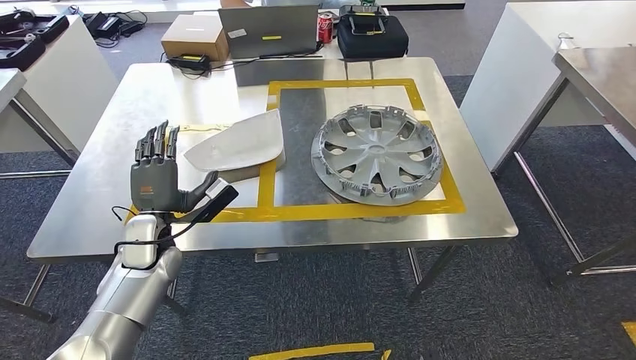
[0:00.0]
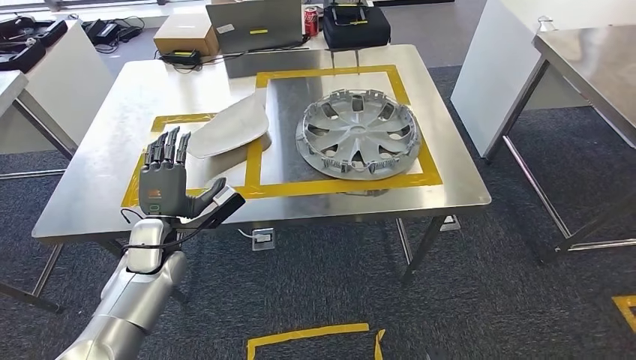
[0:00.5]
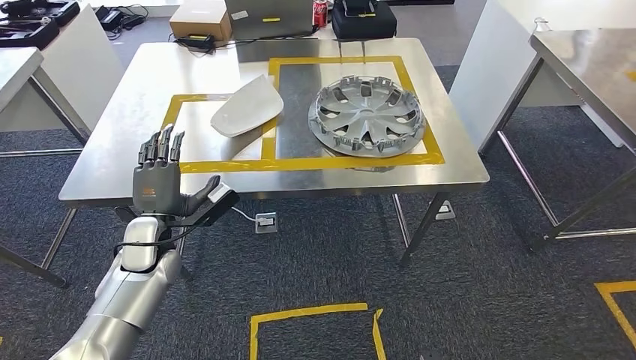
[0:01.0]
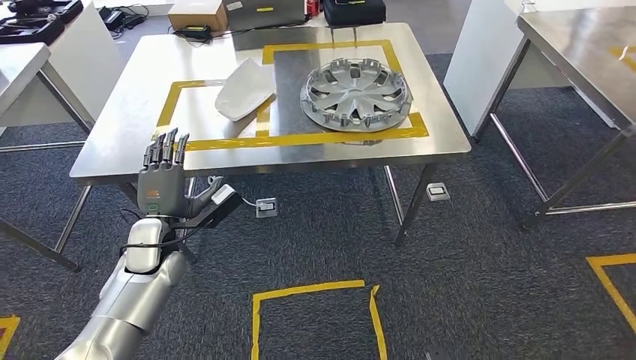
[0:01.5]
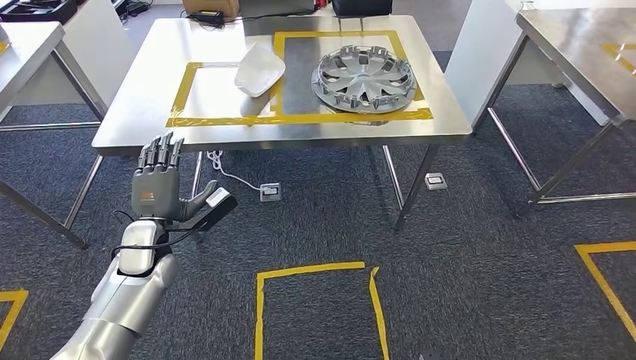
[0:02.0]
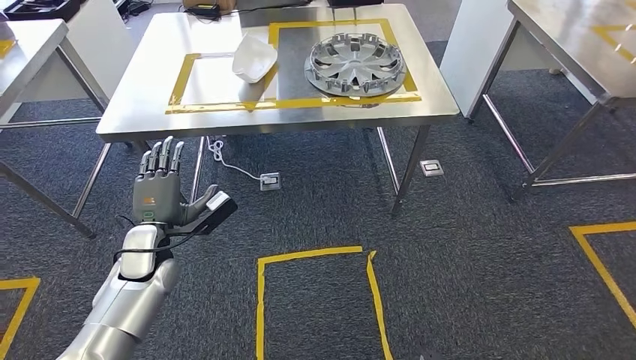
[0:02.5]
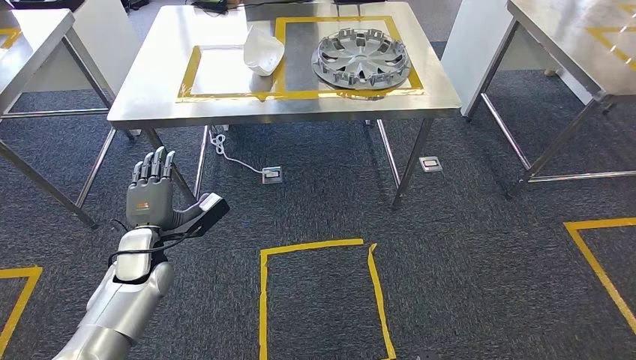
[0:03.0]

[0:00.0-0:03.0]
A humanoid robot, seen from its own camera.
Step, 0:00.0 to 0:03.0: Return to the initial position at the shelf.

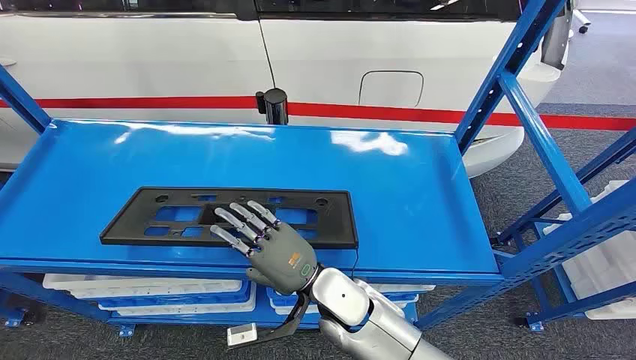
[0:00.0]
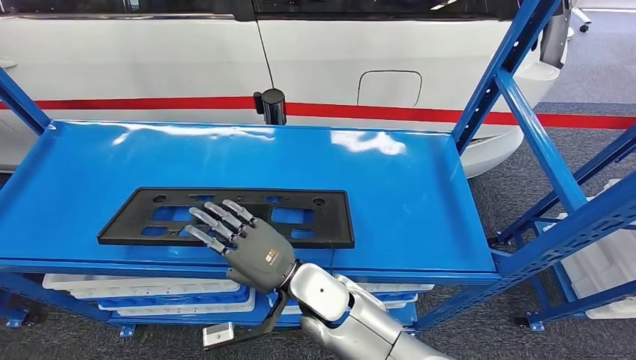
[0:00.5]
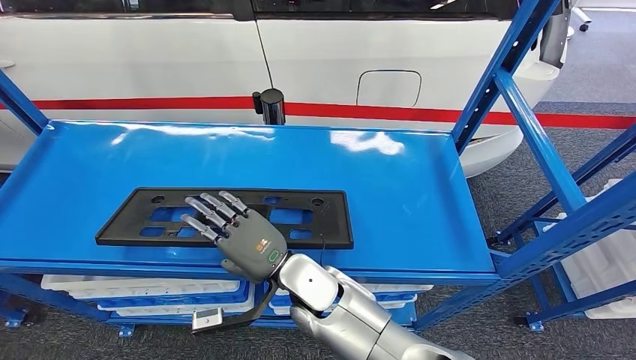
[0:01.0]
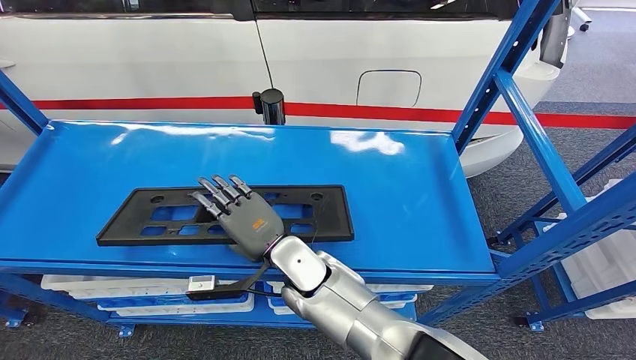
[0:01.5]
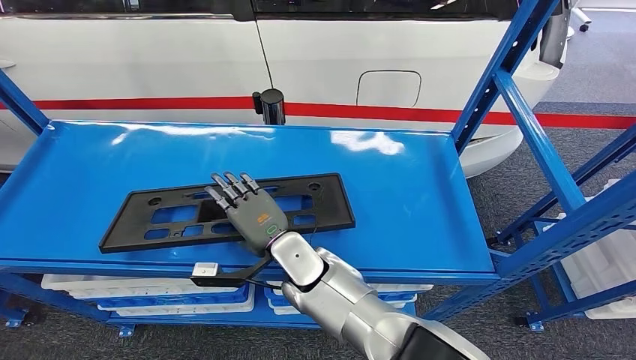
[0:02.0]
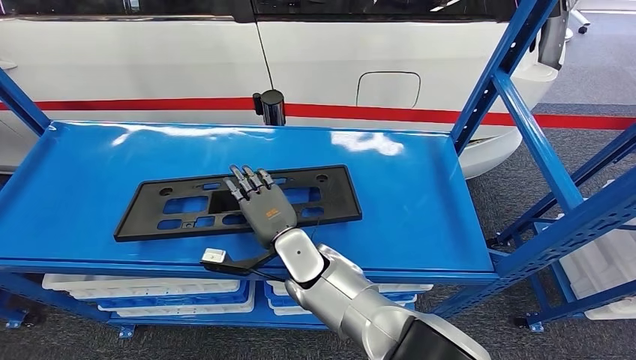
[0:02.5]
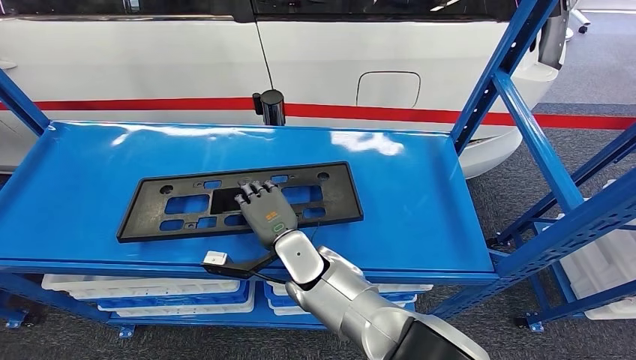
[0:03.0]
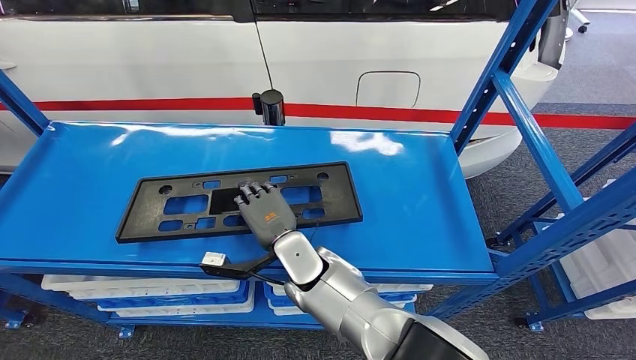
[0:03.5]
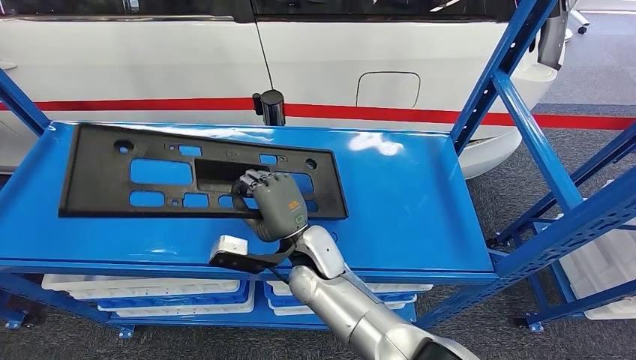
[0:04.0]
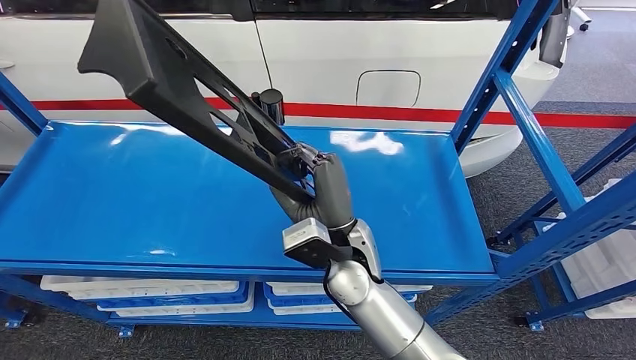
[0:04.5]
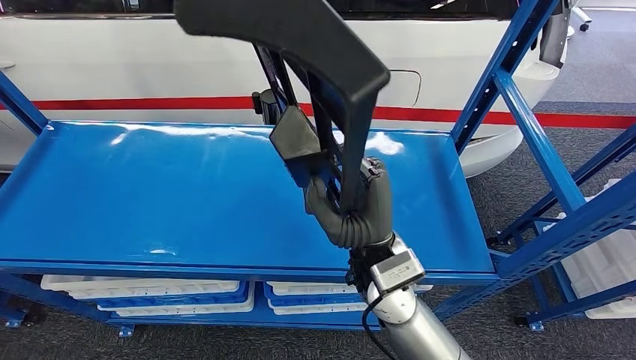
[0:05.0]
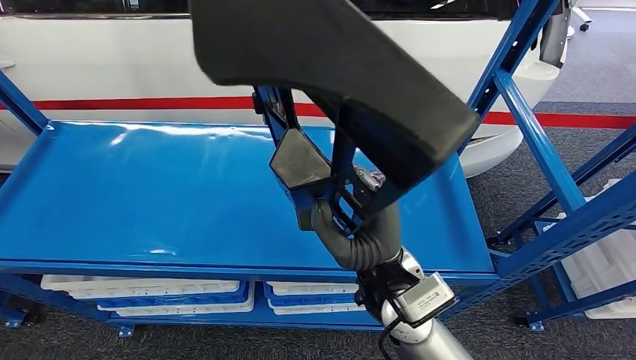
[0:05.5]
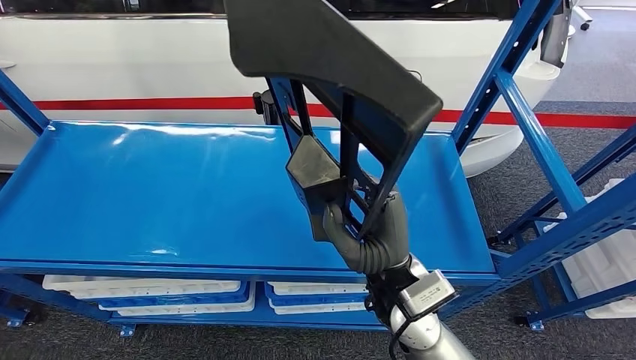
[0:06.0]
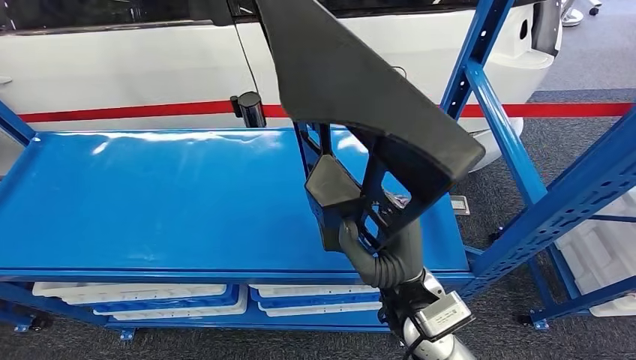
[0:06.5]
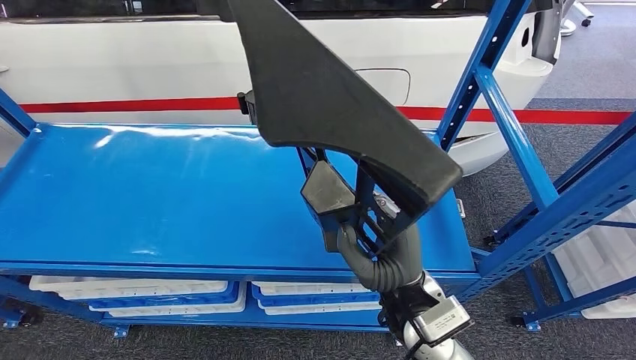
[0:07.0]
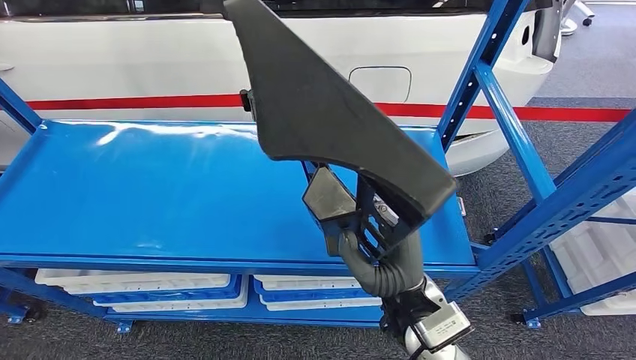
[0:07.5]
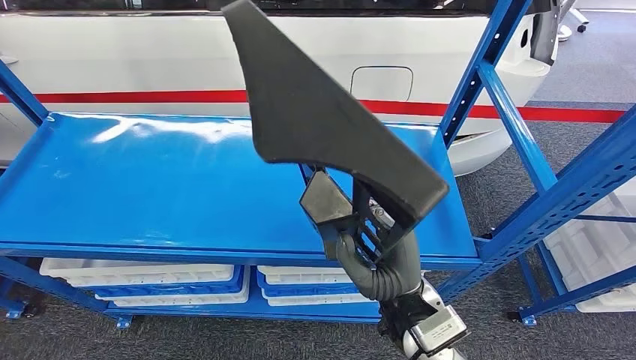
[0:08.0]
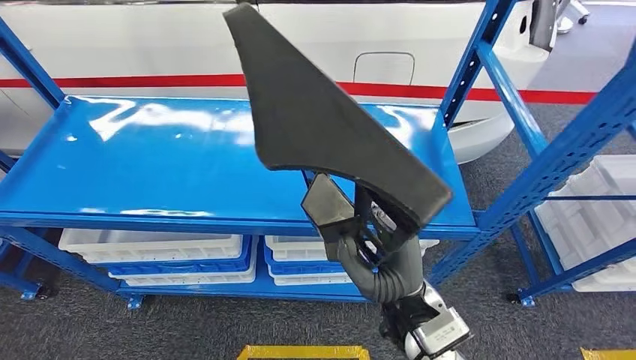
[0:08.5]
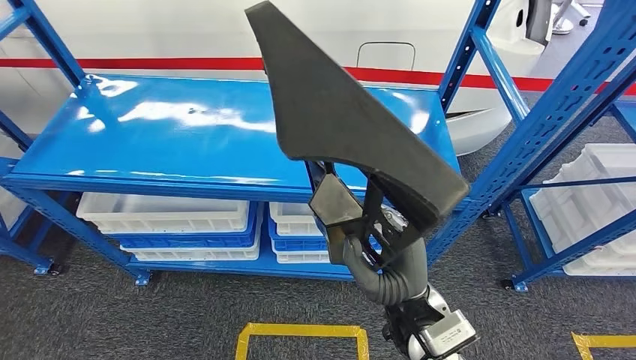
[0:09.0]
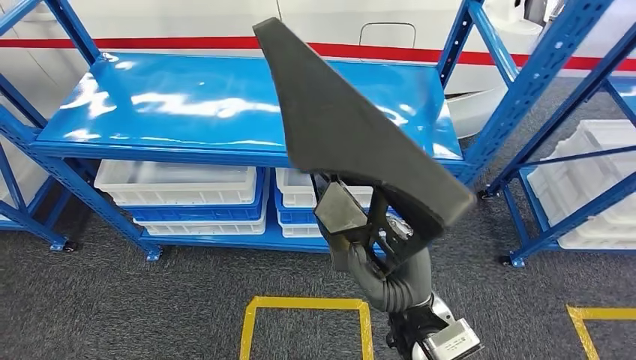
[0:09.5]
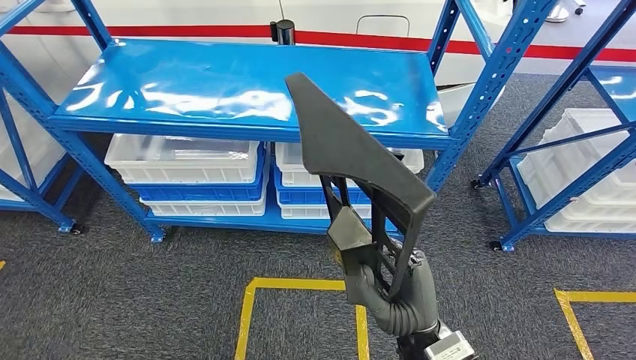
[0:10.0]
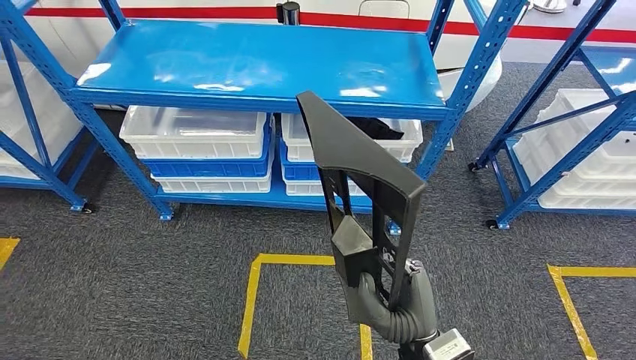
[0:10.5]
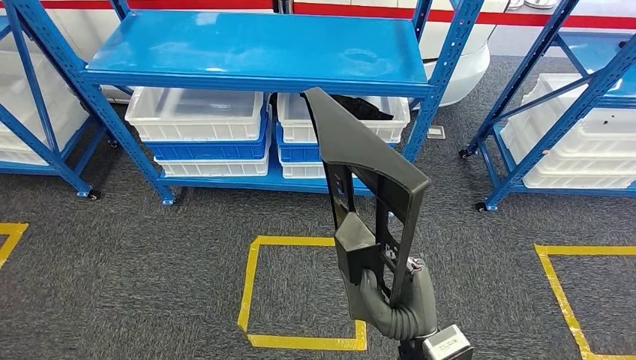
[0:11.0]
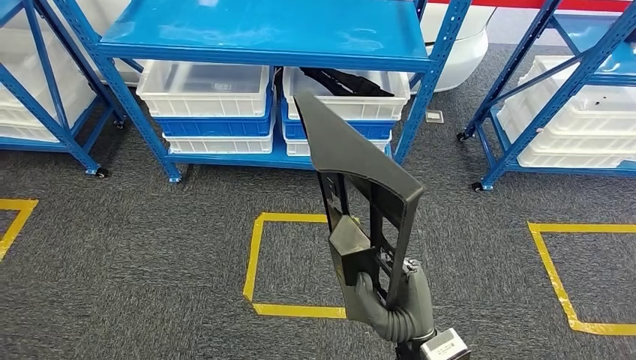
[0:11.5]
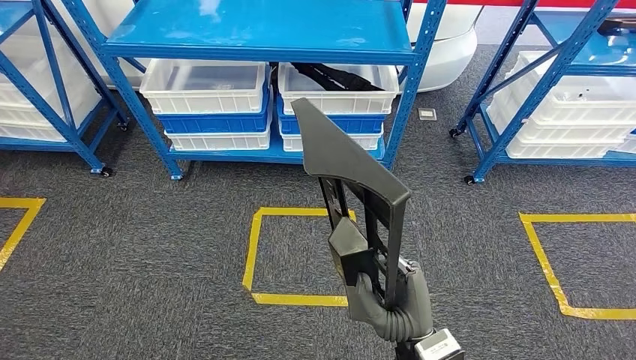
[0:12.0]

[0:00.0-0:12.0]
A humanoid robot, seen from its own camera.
Step, 0:00.0 to 0:09.0: Pick up the large material from the shelf.

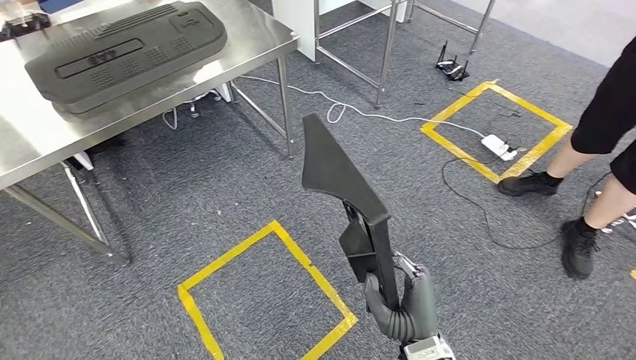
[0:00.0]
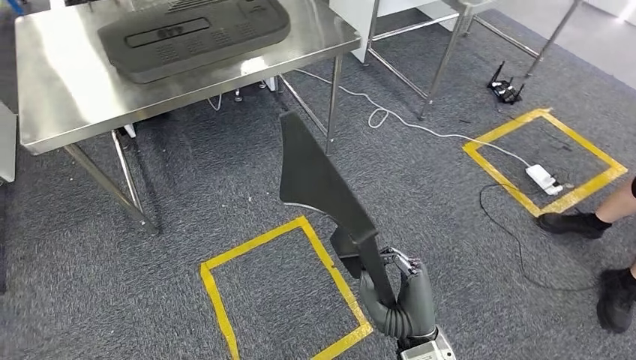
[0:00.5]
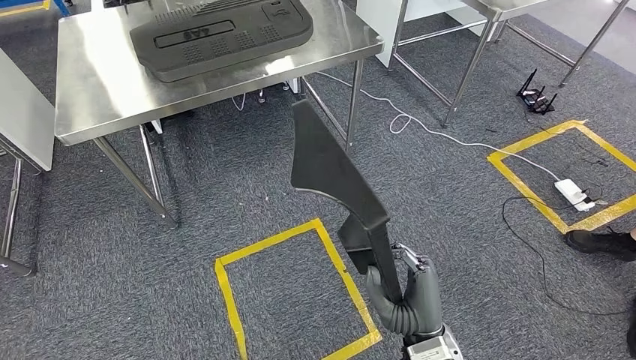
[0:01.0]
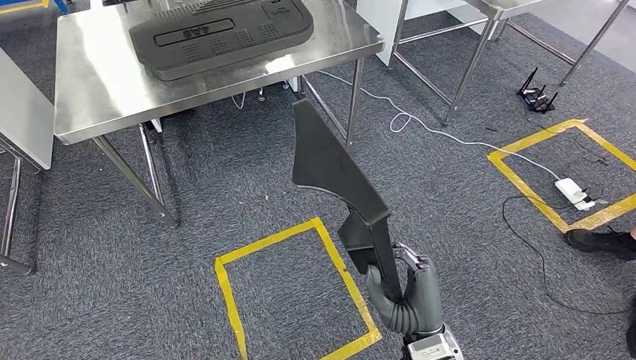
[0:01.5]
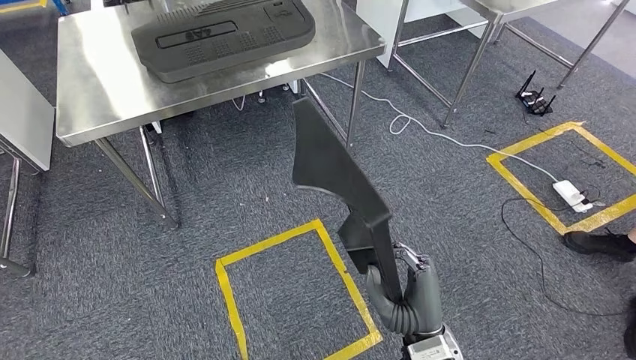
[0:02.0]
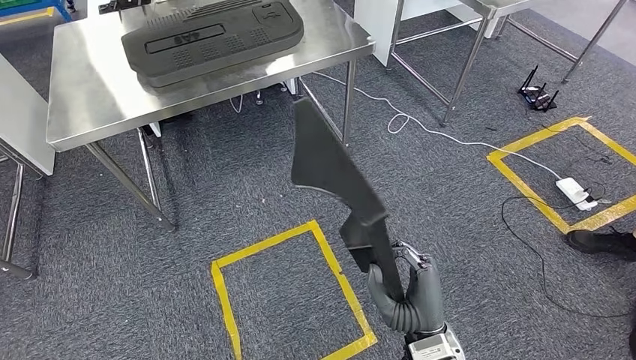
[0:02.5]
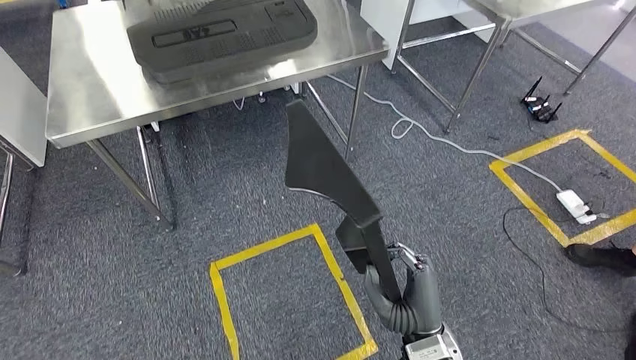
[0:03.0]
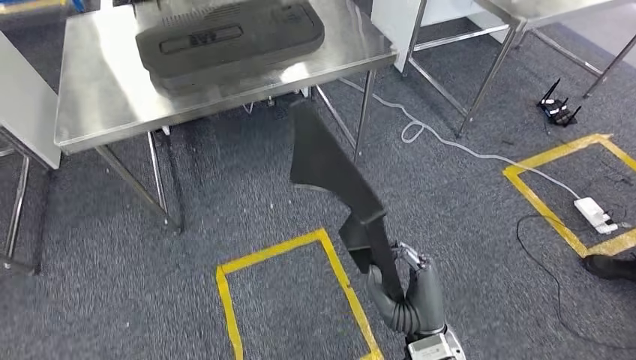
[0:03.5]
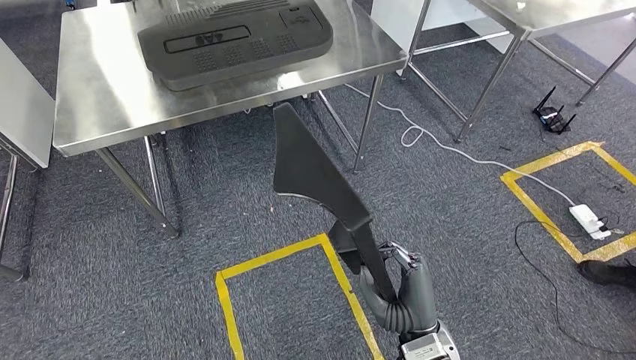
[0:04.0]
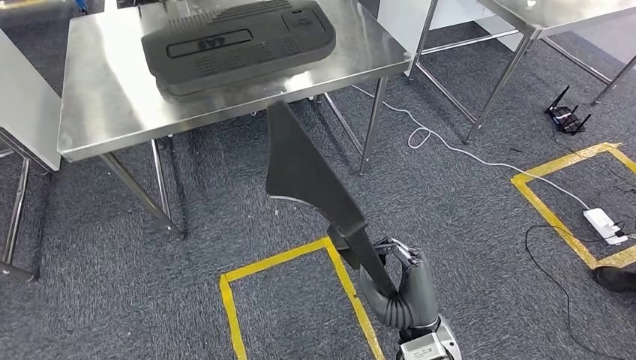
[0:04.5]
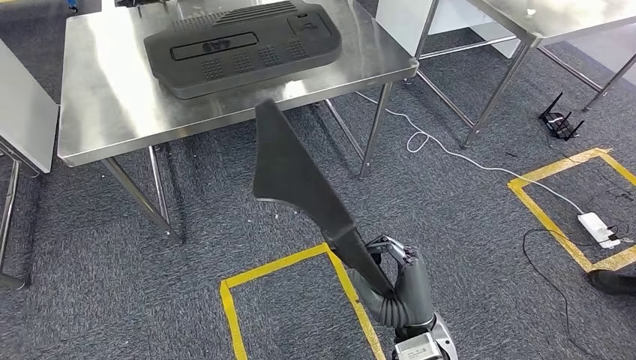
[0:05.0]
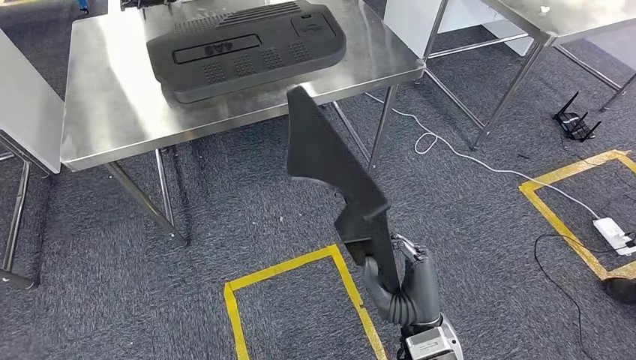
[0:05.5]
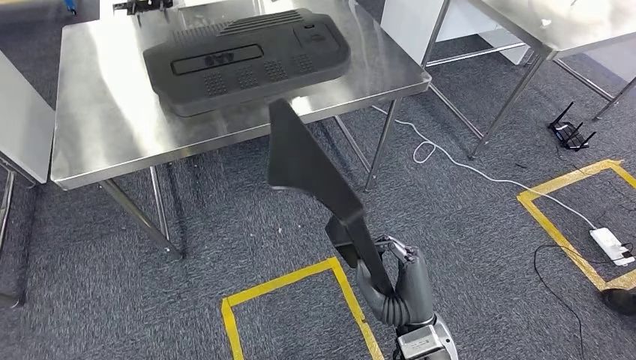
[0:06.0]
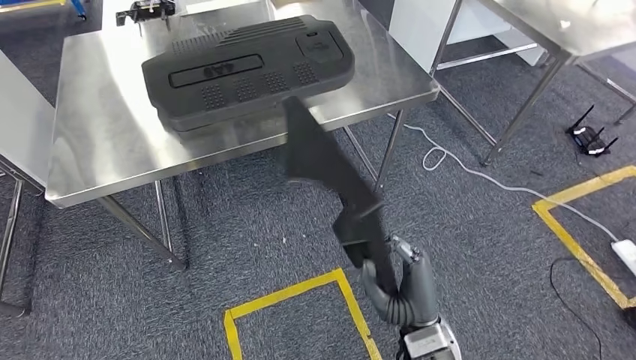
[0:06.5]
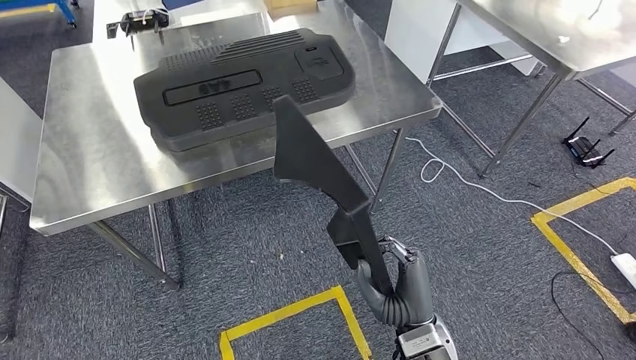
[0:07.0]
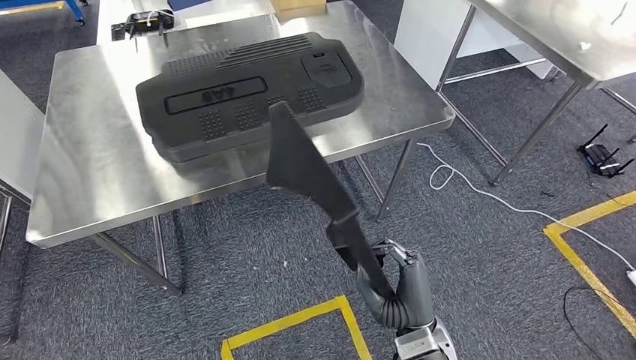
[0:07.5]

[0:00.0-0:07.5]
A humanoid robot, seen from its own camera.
Step, 0:00.0 to 0:05.0: Move the large material to the workbench.
